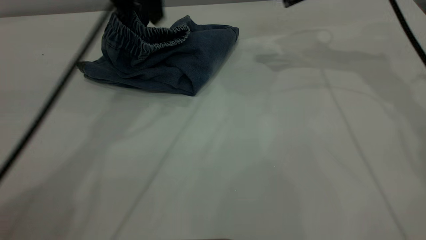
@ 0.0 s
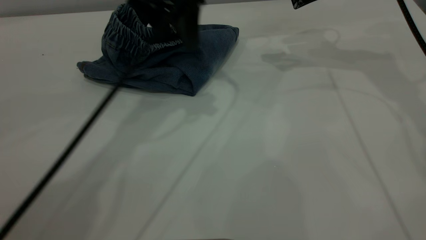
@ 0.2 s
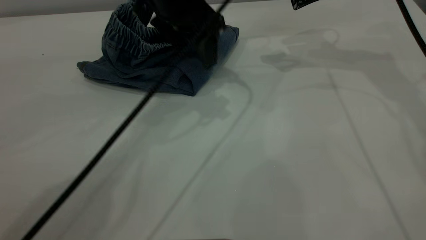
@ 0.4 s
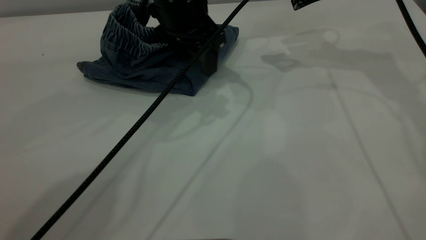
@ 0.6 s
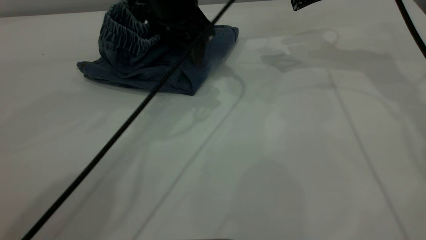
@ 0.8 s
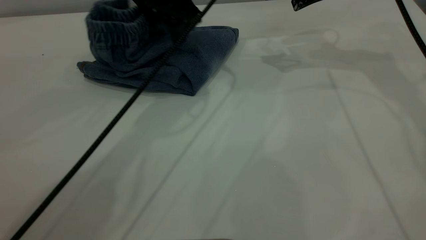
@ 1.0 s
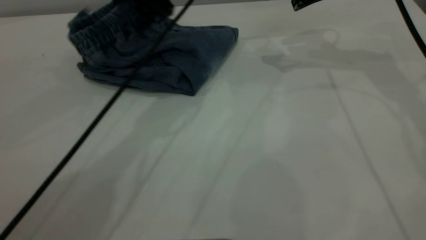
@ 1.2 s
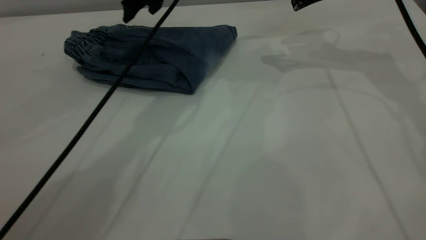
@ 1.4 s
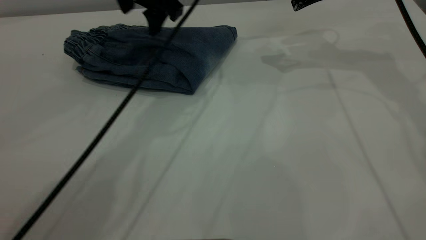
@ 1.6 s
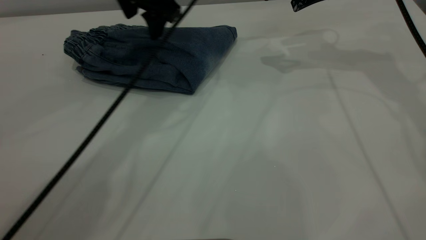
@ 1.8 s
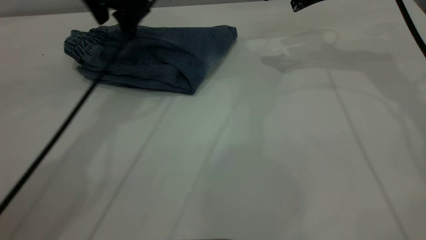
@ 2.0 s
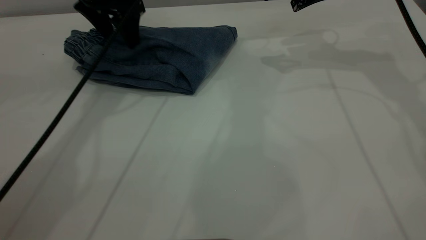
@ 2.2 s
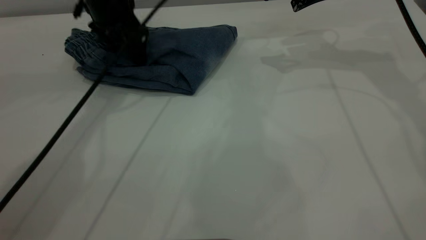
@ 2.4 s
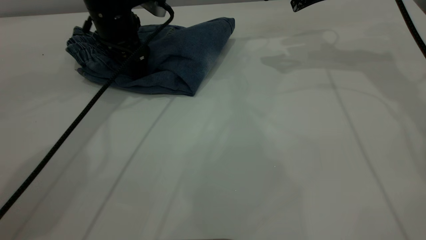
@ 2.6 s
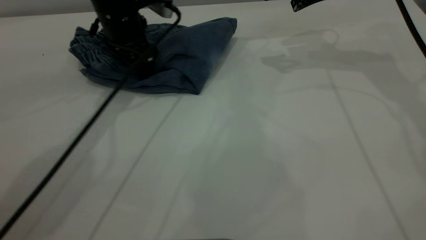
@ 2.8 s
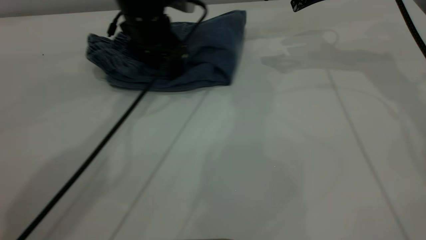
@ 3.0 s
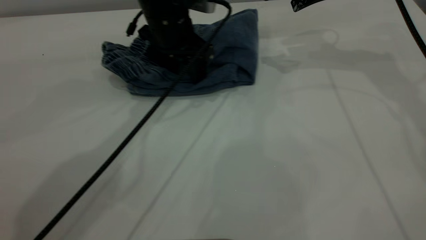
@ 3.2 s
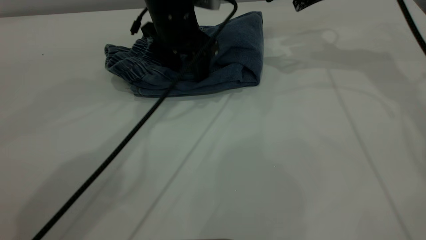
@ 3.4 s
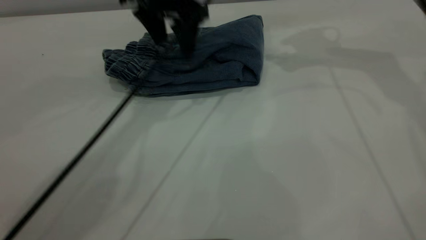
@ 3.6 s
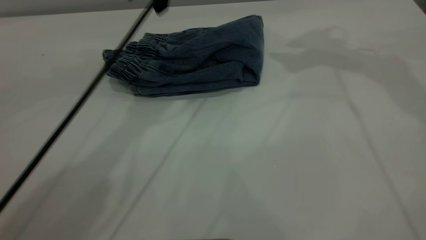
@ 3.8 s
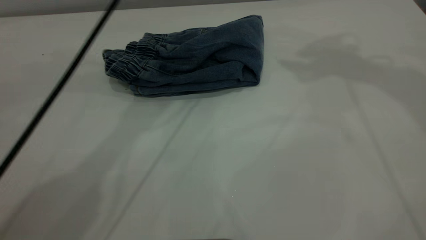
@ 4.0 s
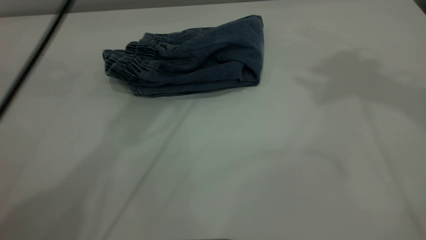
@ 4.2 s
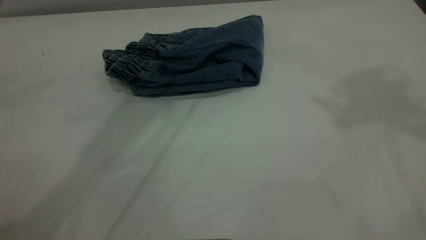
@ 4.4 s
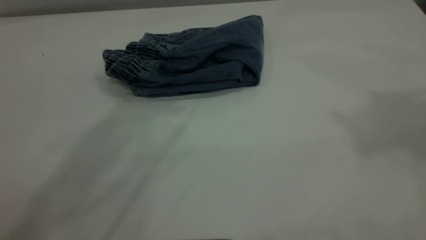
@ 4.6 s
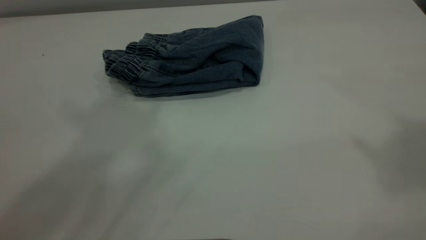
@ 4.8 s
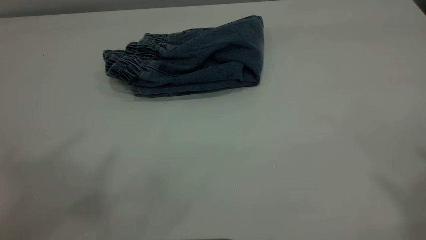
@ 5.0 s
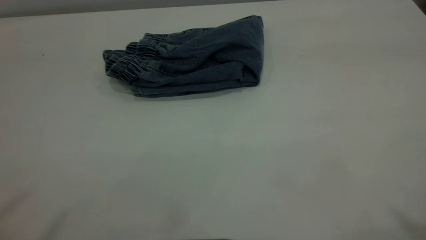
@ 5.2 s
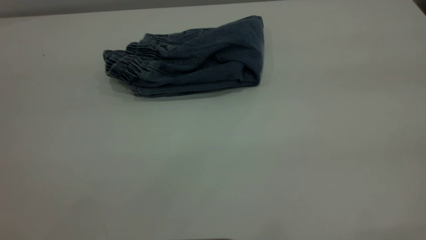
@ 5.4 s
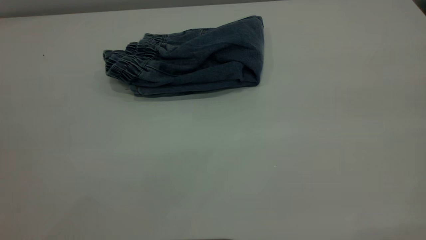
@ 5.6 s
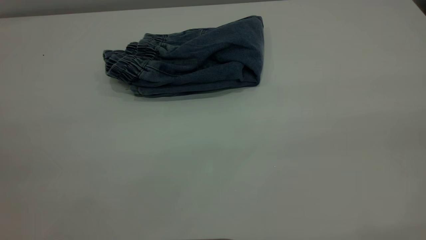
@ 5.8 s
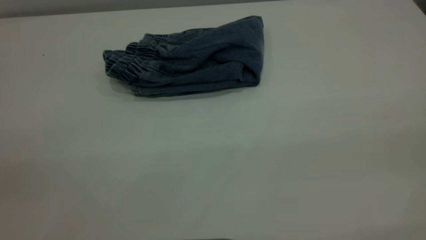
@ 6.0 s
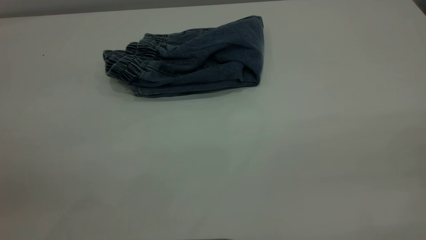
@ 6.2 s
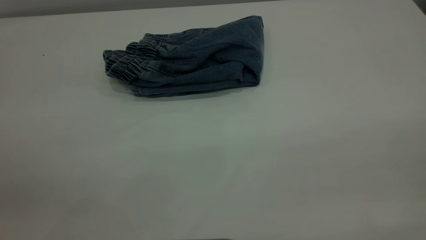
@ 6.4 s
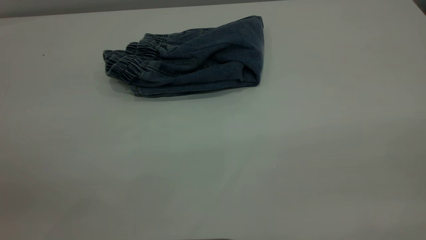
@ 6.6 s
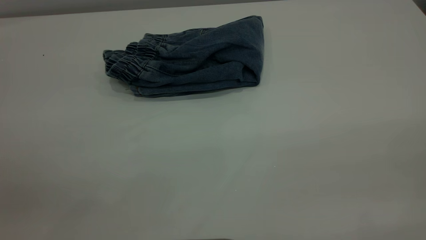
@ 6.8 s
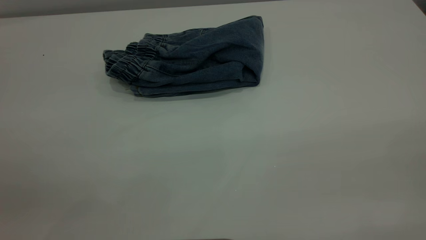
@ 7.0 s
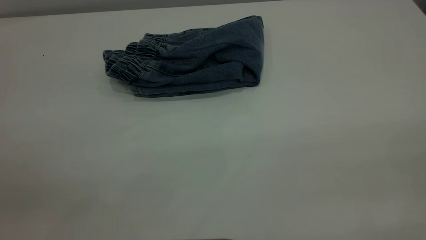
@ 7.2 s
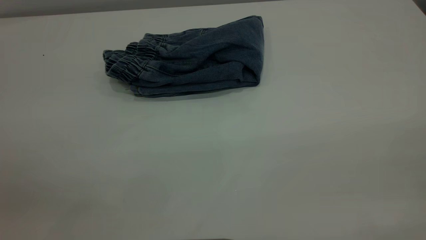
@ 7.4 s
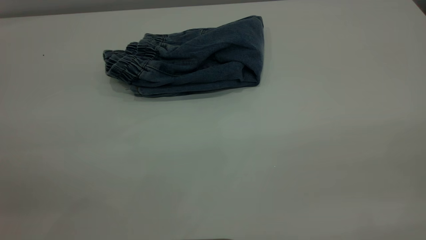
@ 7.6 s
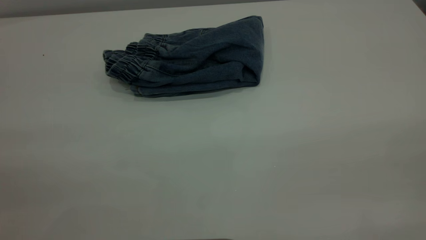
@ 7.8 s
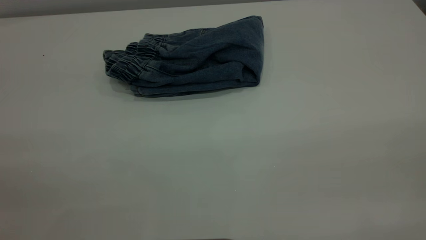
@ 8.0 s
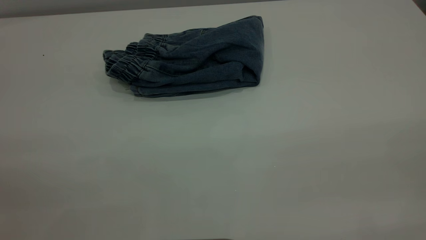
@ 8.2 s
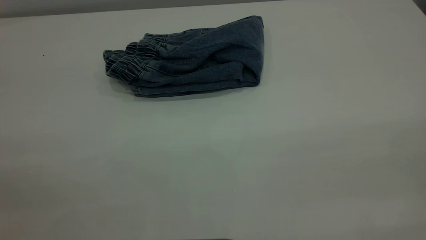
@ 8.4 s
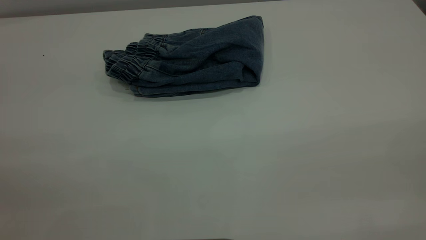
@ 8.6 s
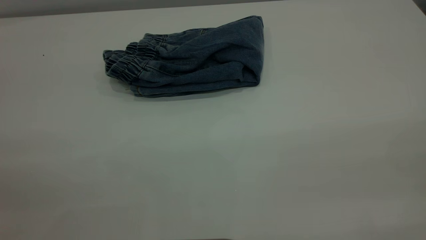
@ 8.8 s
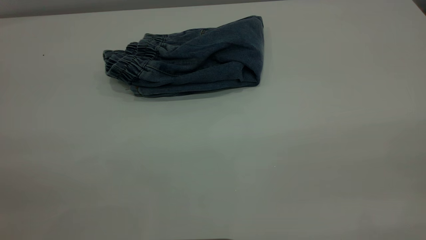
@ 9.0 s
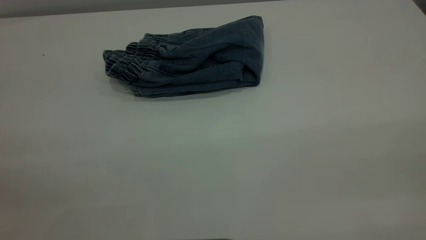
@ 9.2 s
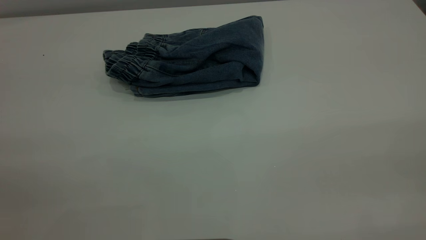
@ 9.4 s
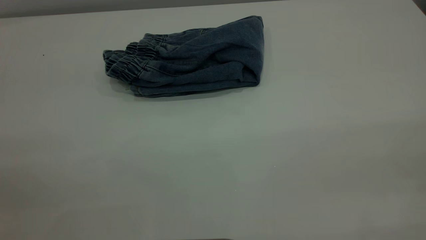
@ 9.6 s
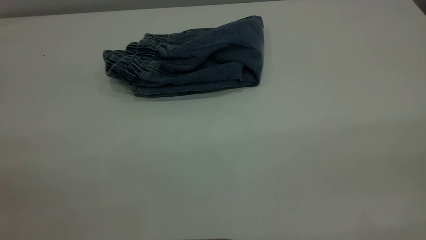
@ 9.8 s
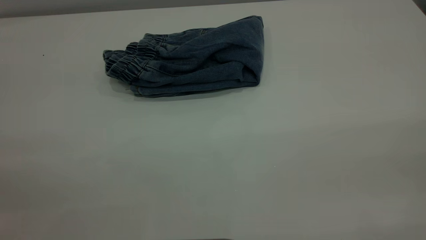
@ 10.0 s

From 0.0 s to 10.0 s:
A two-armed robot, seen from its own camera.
From 1.4 s to 2.8 s: The left gripper shifts roughly 10 cm downward.
From 2.8 s to 4.2 s: The left gripper travels upward by roughly 25 cm, while the right gripper heads upward and backward, covering roughly 30 cm.
From 4.2 s to 5.8 s: The left gripper travels backward and to the left by some 50 cm.
